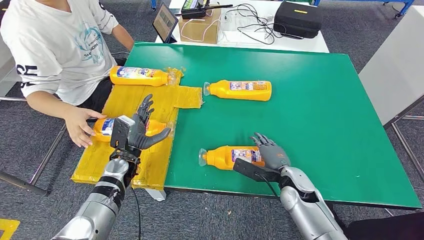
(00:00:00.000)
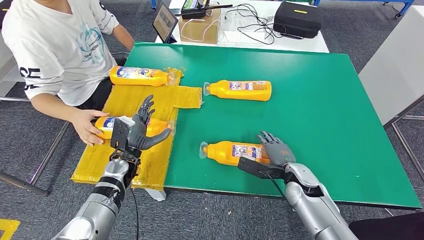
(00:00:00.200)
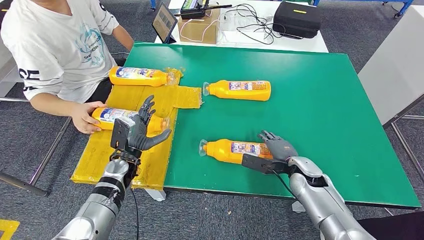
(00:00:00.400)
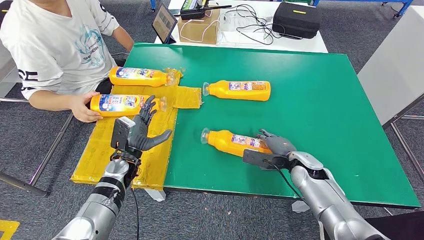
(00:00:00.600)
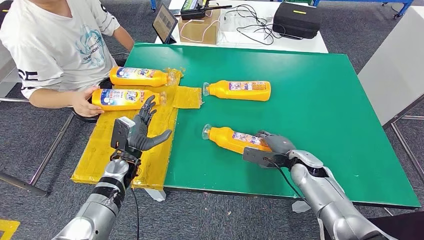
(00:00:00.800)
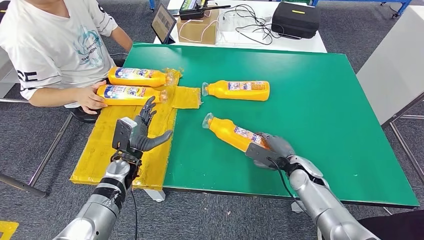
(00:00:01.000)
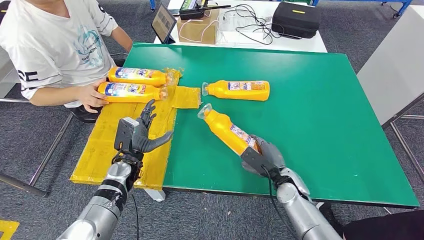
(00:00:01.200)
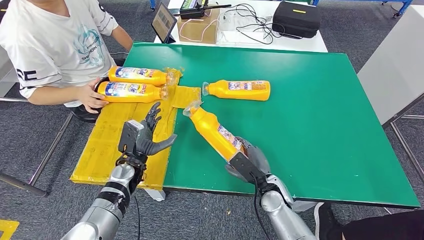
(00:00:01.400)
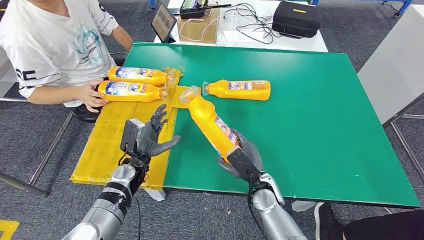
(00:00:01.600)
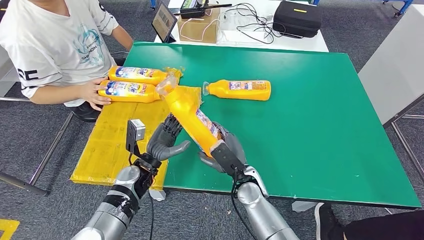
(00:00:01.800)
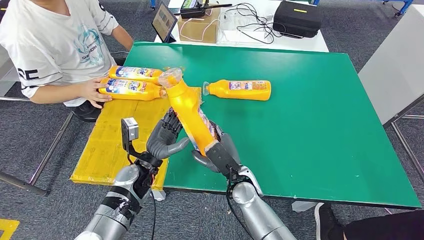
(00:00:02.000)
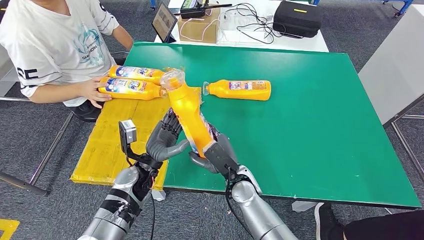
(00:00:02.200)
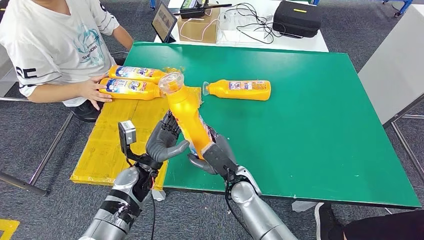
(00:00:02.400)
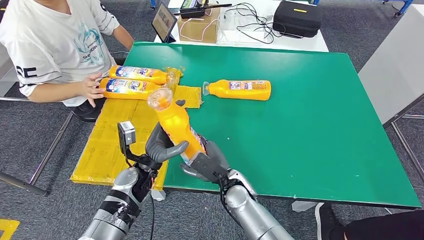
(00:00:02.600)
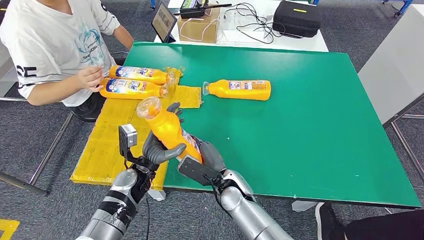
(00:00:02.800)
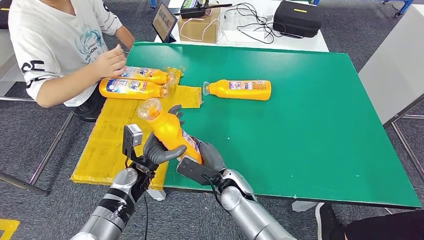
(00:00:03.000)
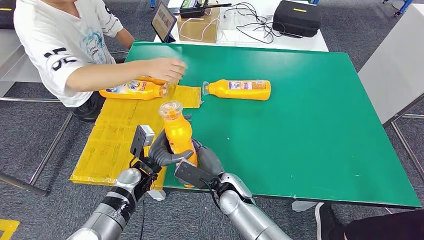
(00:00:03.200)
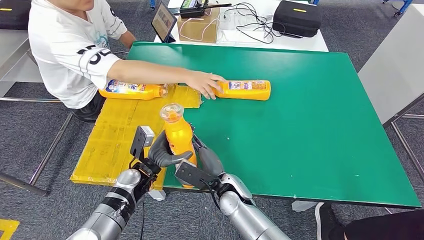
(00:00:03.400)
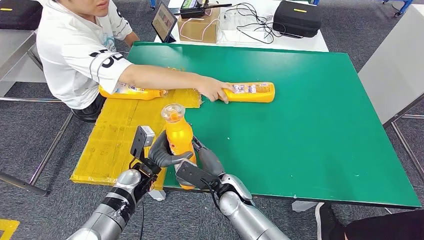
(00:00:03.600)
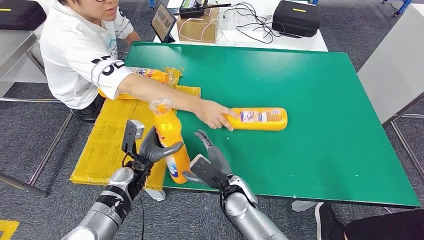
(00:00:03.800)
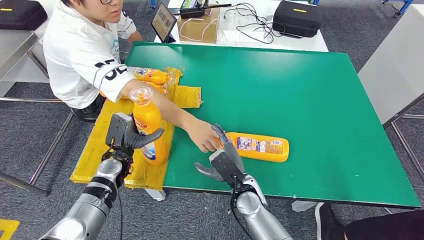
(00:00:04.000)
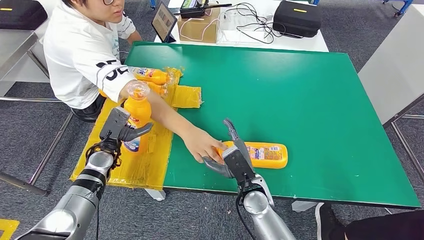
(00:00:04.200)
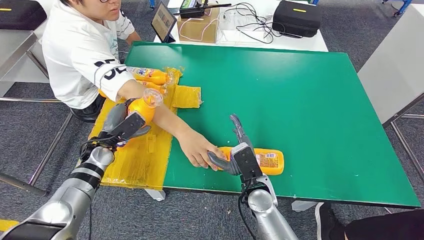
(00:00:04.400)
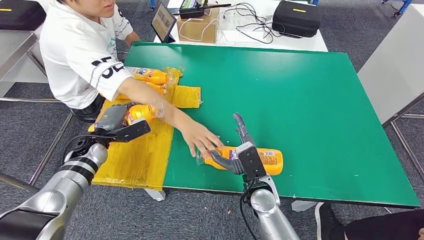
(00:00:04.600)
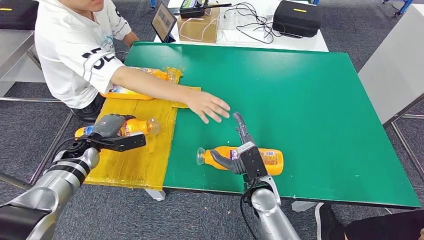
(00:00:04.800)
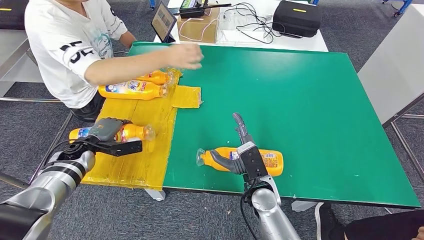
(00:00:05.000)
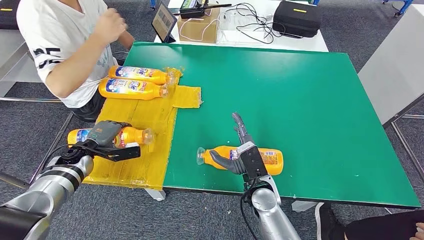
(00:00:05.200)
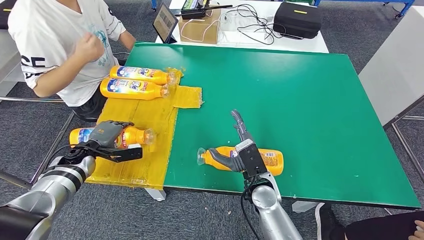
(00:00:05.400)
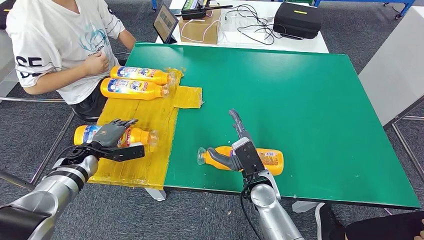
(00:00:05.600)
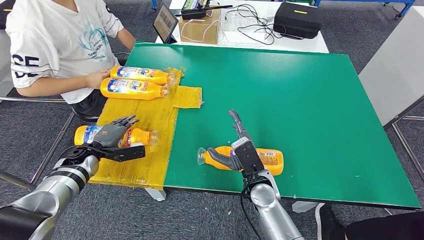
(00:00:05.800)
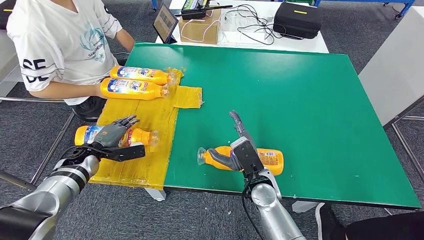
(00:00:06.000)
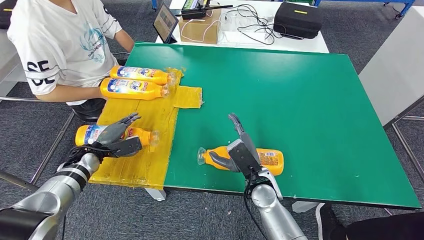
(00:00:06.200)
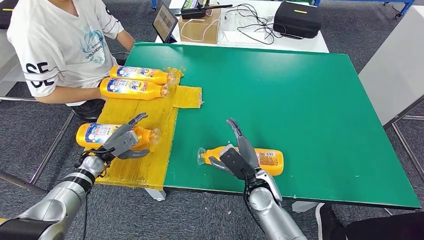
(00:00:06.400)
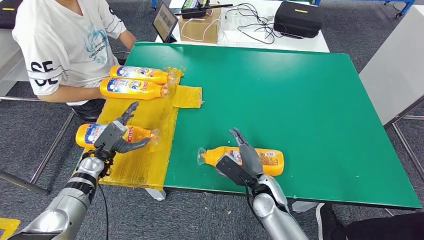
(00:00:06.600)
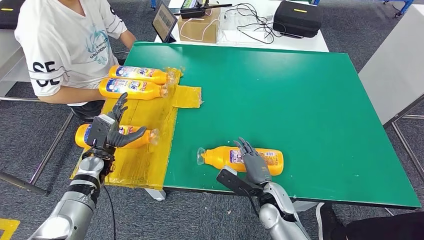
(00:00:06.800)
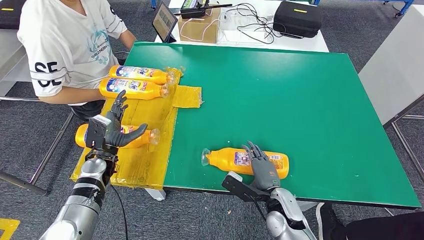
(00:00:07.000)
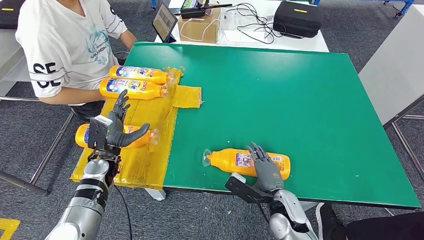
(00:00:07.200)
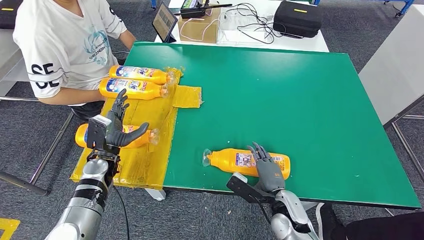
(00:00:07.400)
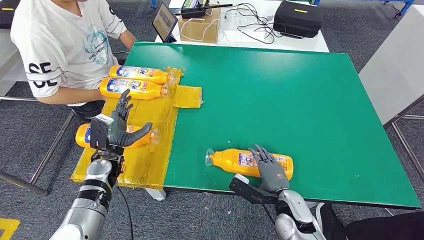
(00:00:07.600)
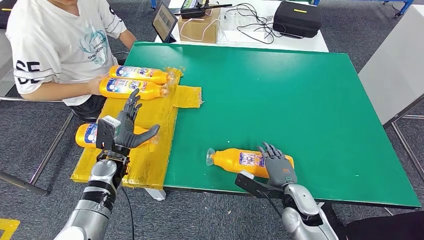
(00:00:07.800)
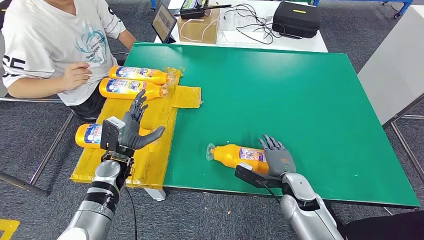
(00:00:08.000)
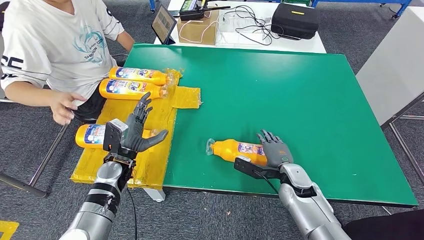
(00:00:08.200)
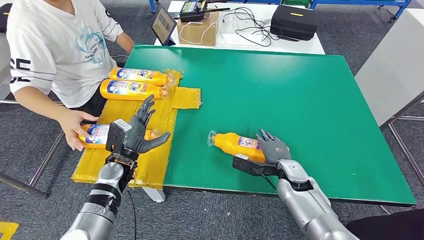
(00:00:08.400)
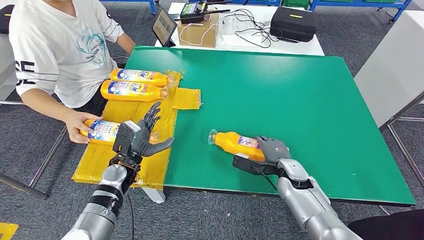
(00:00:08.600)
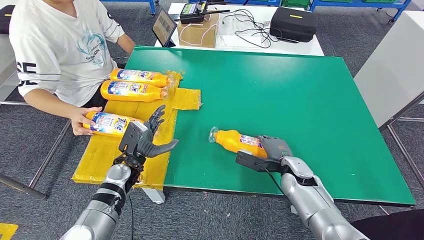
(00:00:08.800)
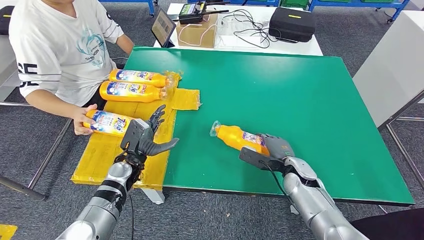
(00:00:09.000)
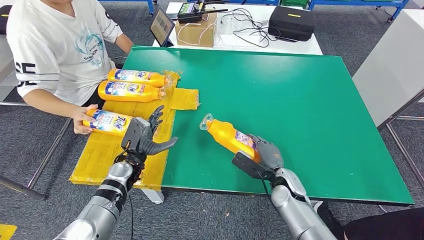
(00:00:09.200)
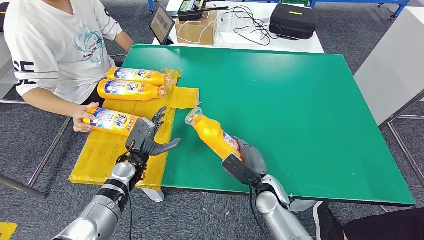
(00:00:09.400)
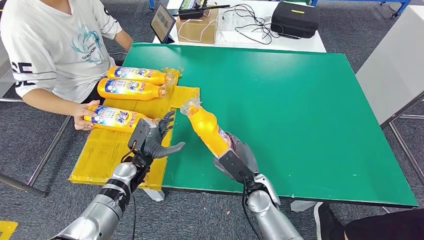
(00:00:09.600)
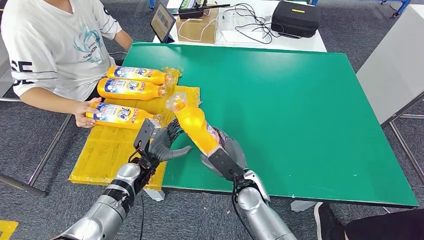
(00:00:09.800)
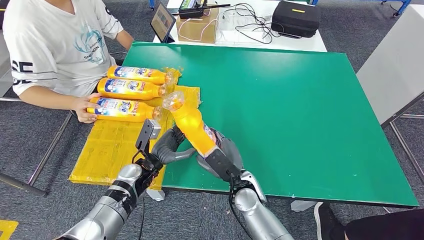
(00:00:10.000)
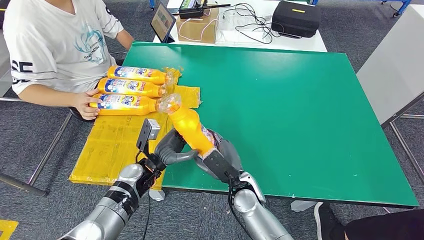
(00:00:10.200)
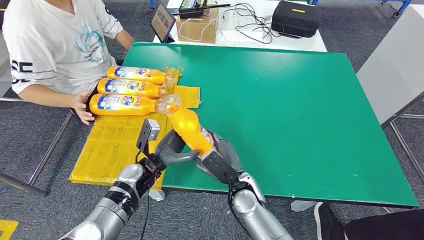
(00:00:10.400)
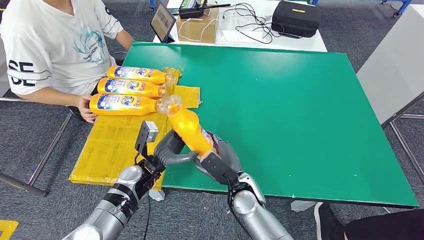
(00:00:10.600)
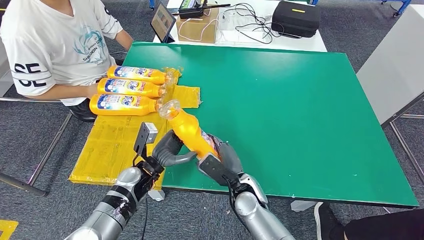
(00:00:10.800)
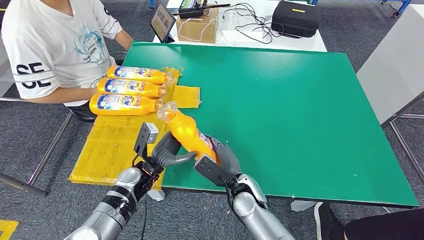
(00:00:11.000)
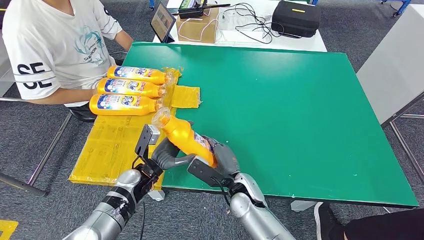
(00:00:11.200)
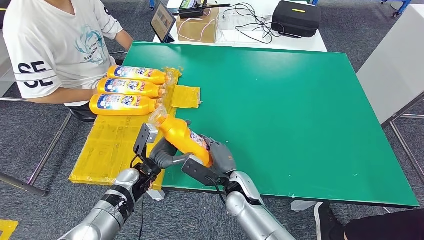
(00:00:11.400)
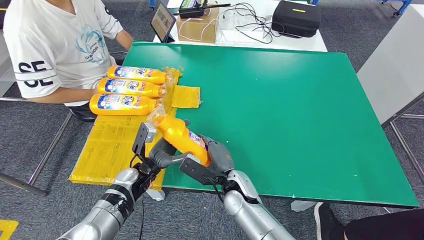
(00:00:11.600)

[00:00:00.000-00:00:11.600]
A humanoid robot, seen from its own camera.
Step, 00:00:01.600 to 00:00:04.800: Flip the fast-moving consumer goods bottle to the front side.
Step, 00:00:05.000 to 00:00:10.200: Pick up the fast-moving consumer goods bottle from the table.
00:00:01.400 to 00:00:02.800: The right hand heads to the left, covering approximately 15 cm; the left hand moves roughly 5 cm.

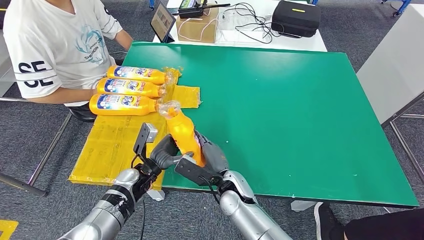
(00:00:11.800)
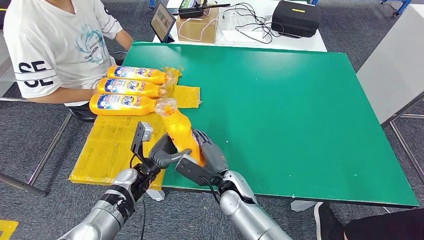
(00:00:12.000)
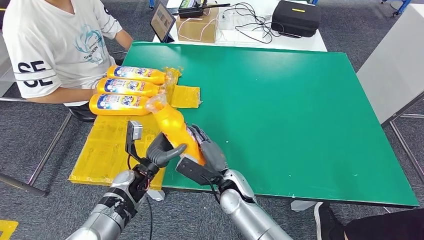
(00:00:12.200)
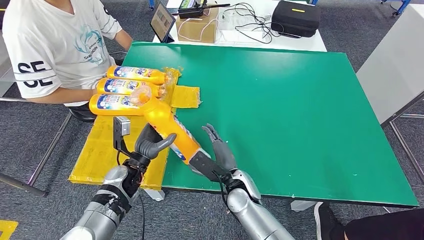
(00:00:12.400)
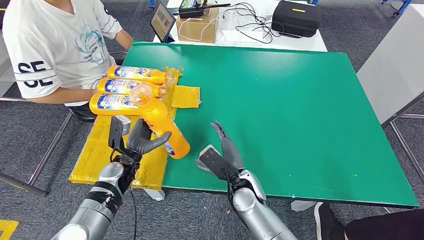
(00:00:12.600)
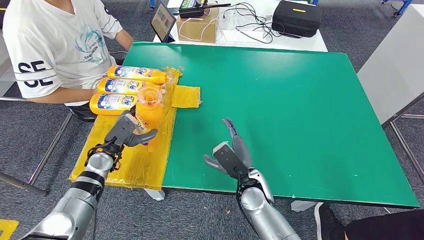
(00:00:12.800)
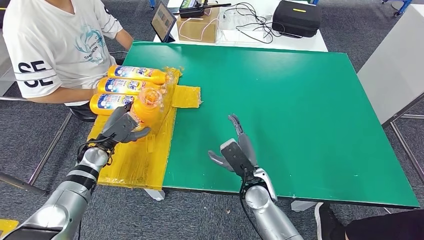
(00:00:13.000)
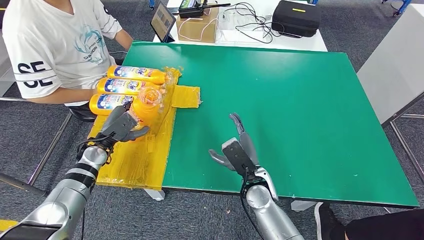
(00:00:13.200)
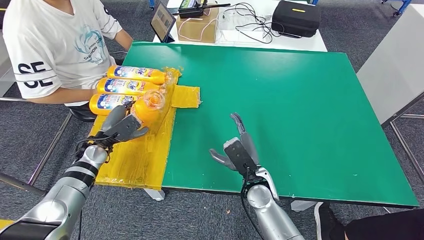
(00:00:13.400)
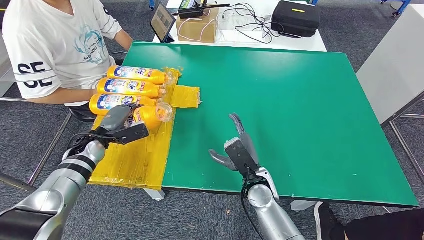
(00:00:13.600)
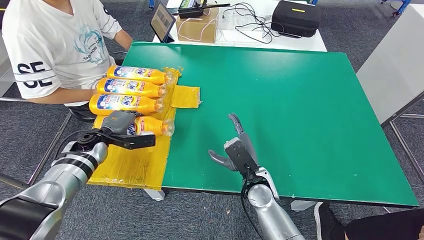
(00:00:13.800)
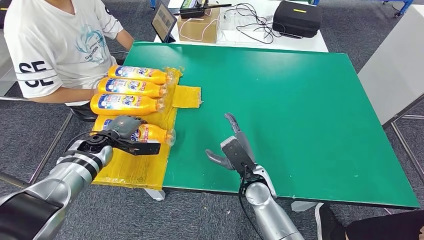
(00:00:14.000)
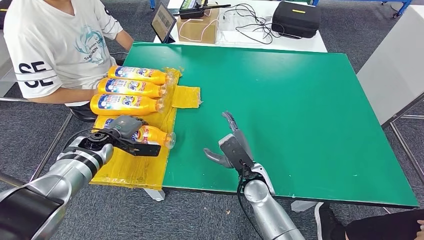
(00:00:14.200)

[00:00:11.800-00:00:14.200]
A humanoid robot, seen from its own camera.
Step, 00:00:11.800 to 00:00:14.200: Flip the fast-moving consumer goods bottle to the front side.
00:00:11.800 to 00:00:13.000: The right hand shifts roughly 5 cm to the right. The left hand shifts roughly 15 cm to the left.
